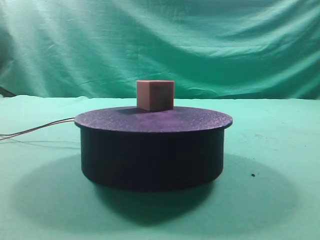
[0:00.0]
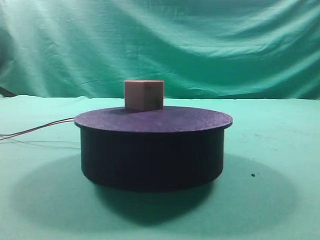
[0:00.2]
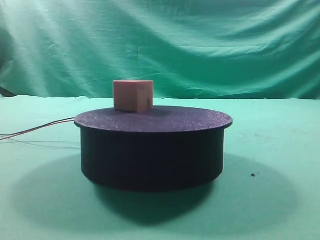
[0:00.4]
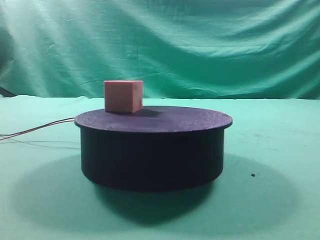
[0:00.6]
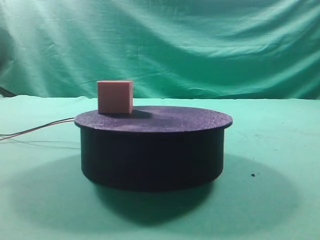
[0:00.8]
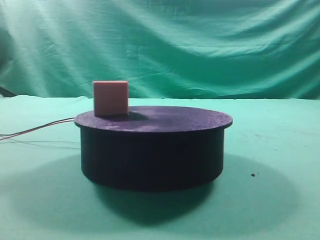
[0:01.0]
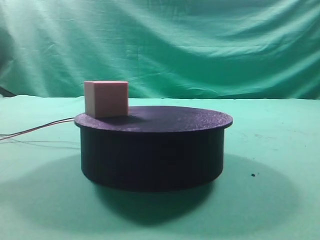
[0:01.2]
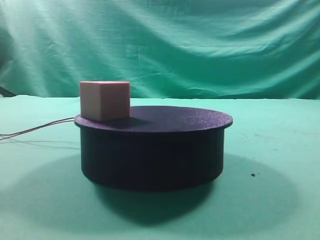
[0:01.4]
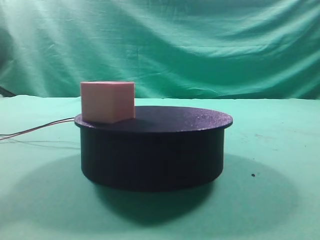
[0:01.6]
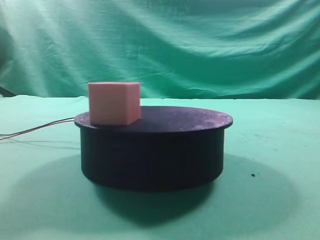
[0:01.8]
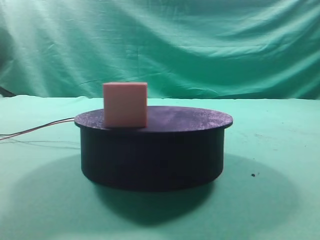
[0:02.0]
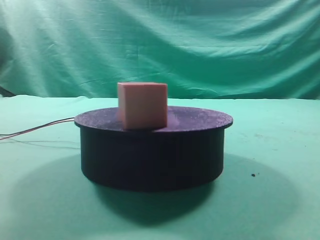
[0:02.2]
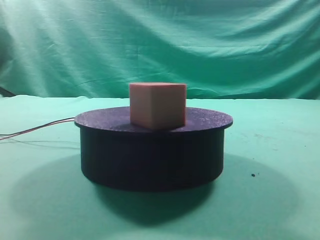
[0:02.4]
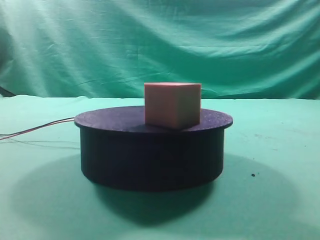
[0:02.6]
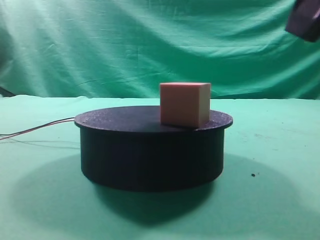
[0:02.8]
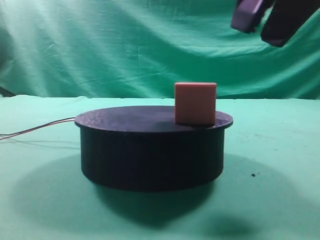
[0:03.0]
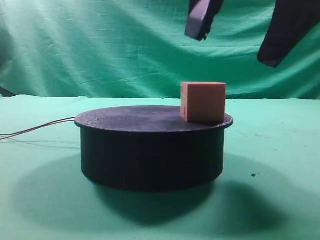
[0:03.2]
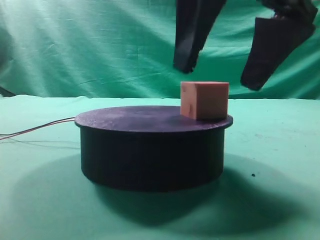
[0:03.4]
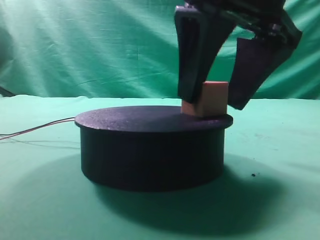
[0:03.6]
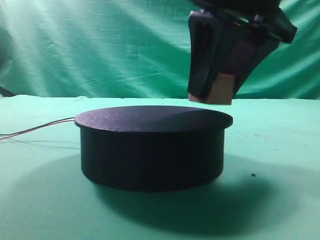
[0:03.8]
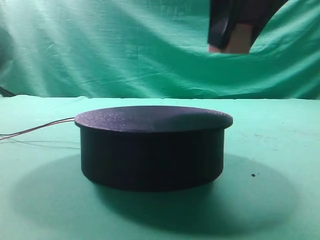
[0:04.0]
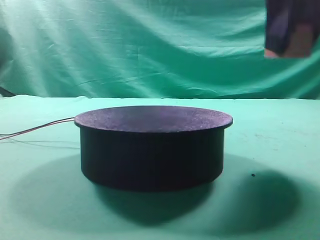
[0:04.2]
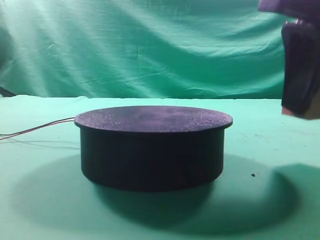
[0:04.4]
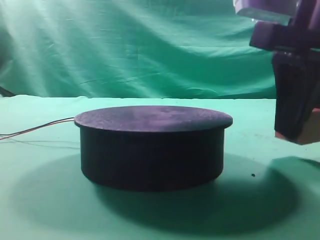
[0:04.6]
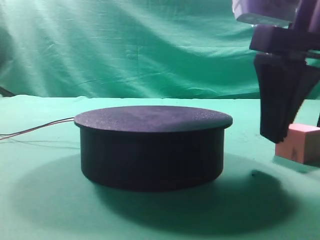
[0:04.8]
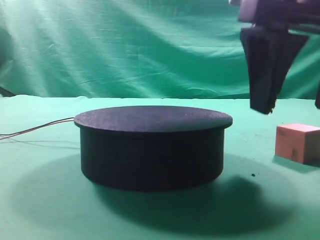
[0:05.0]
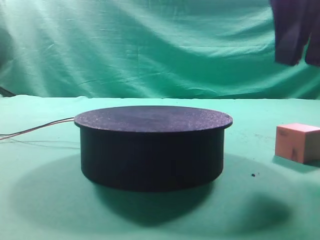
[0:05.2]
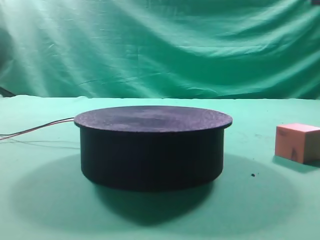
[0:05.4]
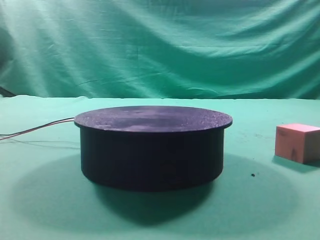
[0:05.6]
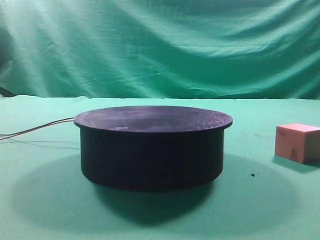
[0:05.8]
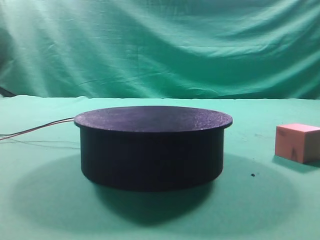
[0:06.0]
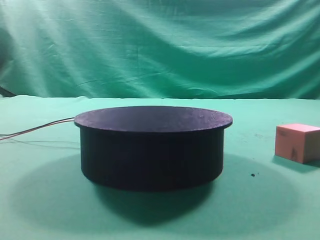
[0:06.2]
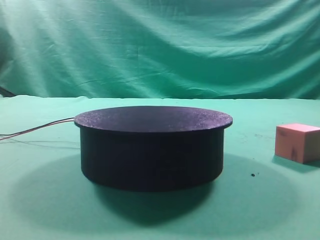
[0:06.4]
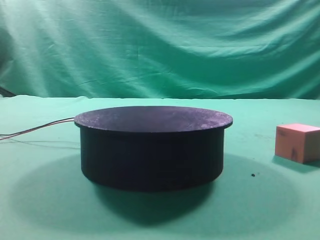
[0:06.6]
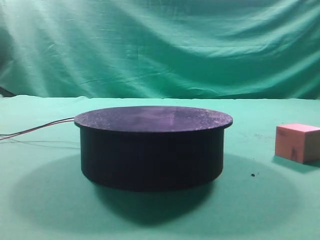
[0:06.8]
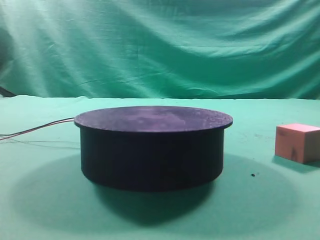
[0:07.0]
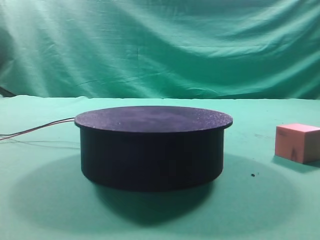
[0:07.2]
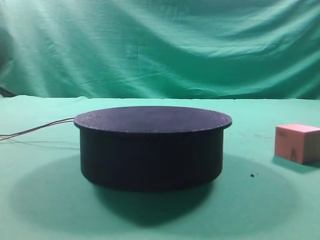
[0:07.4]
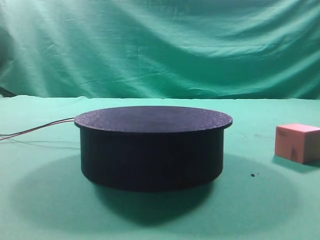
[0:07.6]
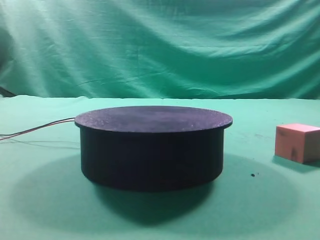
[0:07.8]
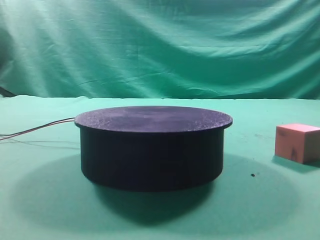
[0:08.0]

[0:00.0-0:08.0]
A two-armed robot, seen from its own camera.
Task of the whole recording: grasp the rotating cube-shaped block on the turntable and place it on the table.
Step, 0:00.0 to 0:03.8: Grasp the rotating cube-shaped block on the turntable.
Step, 0:04.0 to 0:04.8: Place the cube on the desk.
